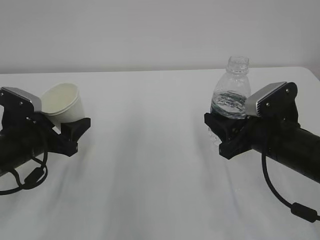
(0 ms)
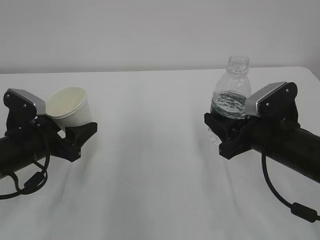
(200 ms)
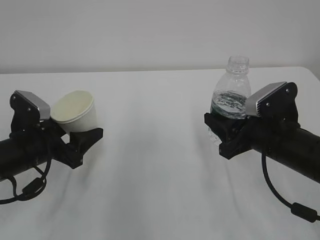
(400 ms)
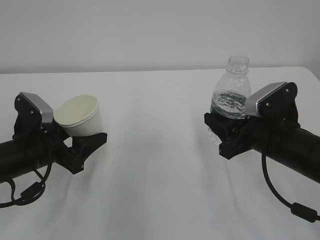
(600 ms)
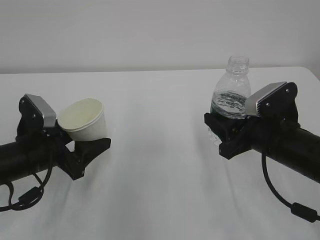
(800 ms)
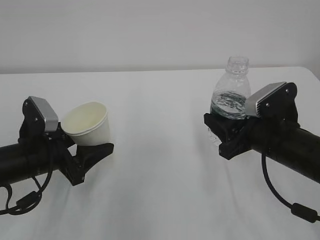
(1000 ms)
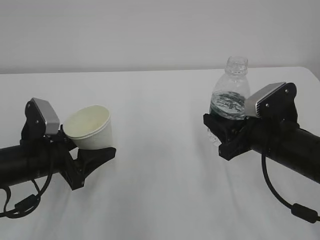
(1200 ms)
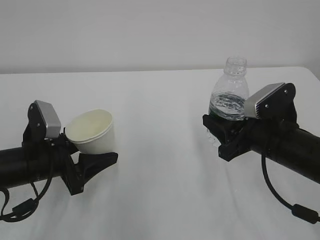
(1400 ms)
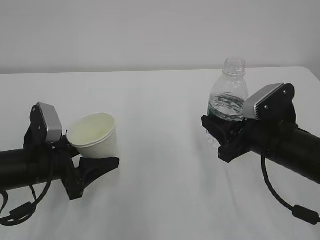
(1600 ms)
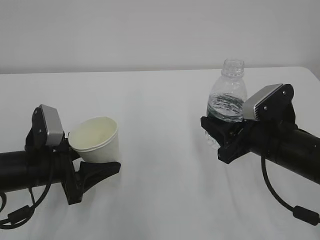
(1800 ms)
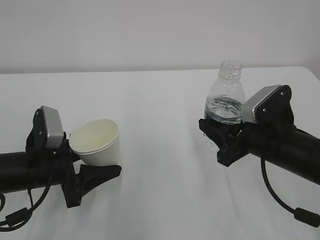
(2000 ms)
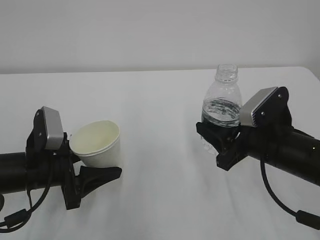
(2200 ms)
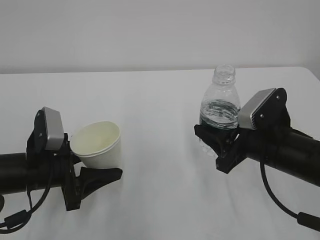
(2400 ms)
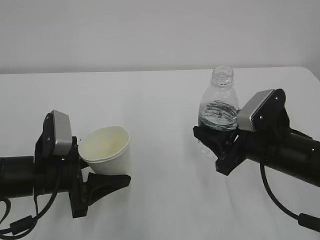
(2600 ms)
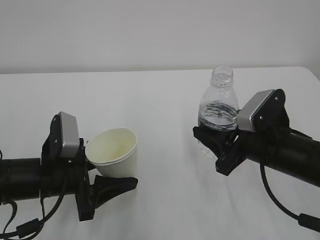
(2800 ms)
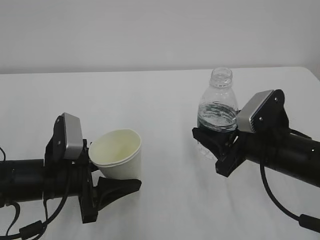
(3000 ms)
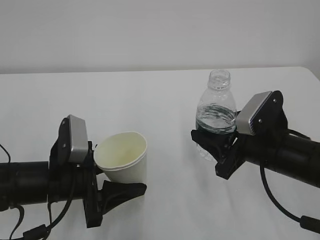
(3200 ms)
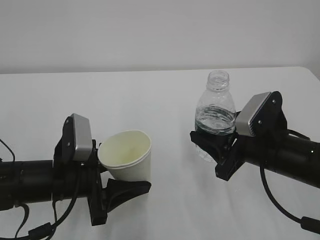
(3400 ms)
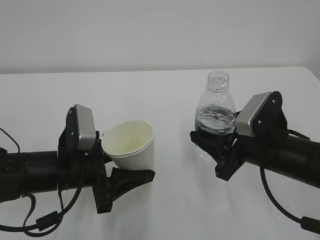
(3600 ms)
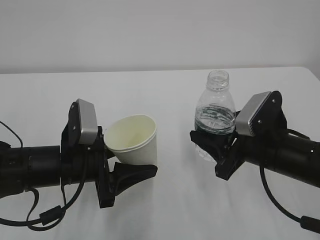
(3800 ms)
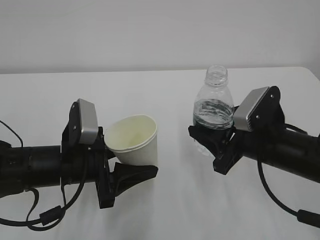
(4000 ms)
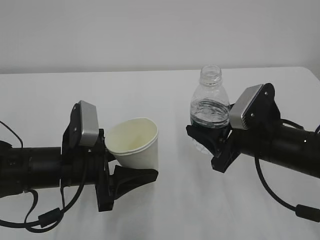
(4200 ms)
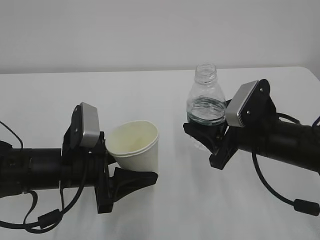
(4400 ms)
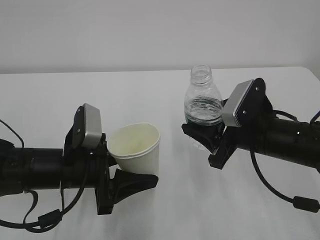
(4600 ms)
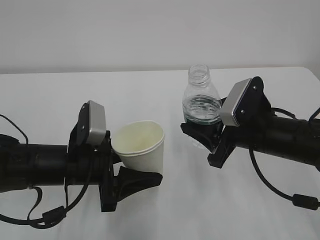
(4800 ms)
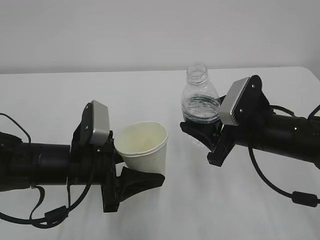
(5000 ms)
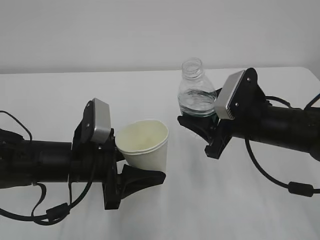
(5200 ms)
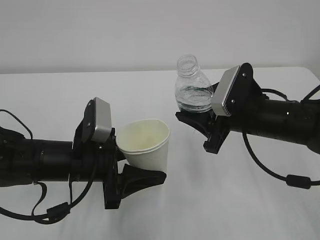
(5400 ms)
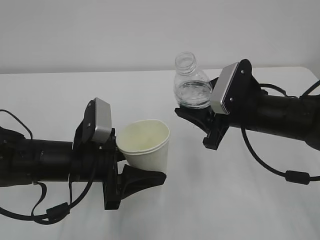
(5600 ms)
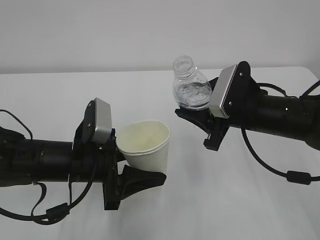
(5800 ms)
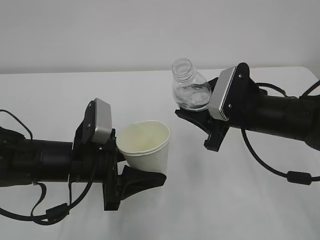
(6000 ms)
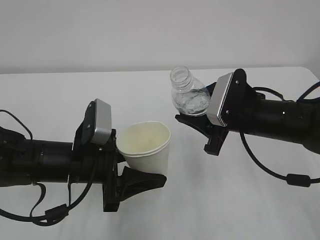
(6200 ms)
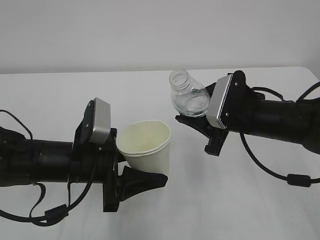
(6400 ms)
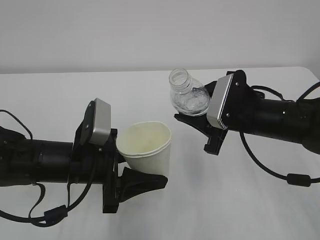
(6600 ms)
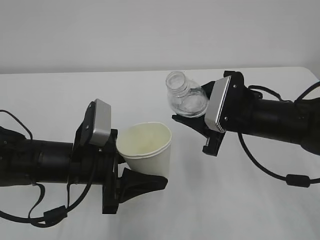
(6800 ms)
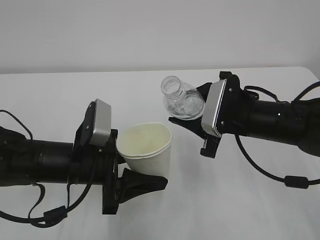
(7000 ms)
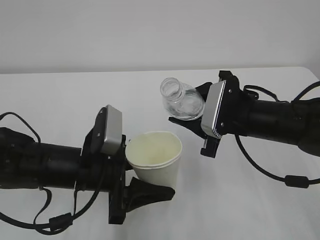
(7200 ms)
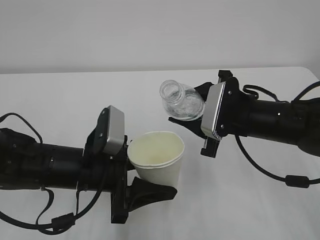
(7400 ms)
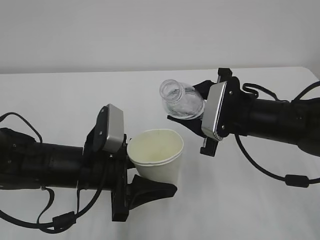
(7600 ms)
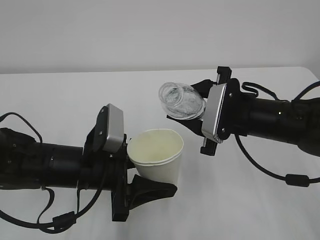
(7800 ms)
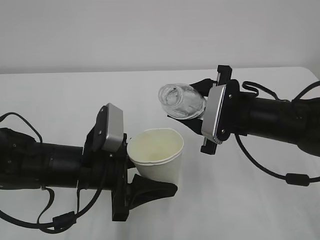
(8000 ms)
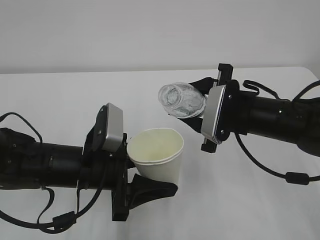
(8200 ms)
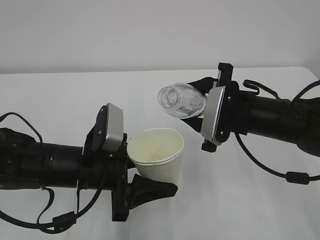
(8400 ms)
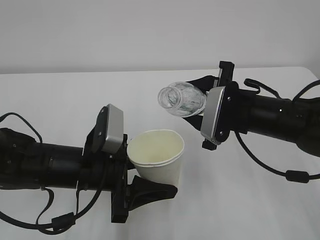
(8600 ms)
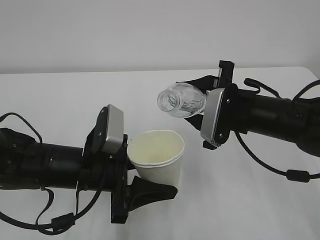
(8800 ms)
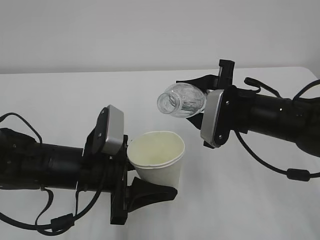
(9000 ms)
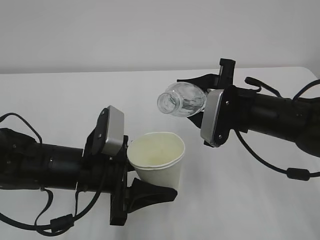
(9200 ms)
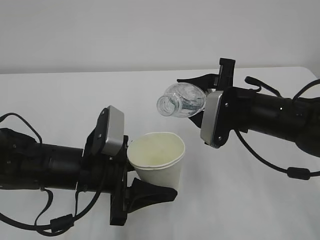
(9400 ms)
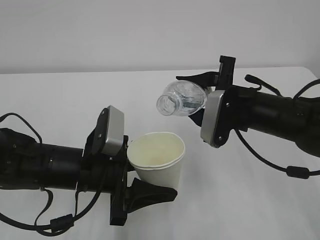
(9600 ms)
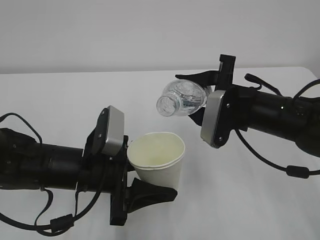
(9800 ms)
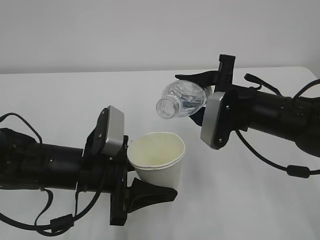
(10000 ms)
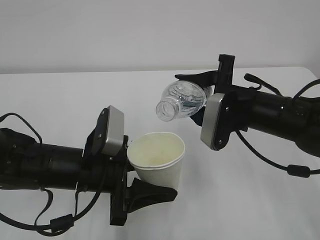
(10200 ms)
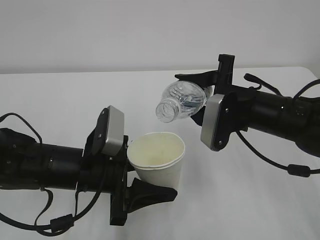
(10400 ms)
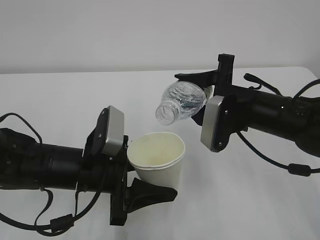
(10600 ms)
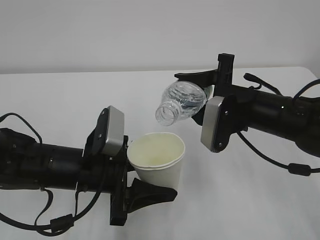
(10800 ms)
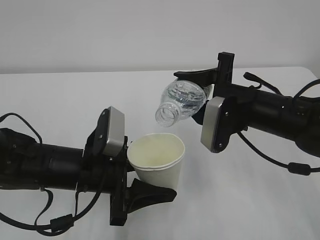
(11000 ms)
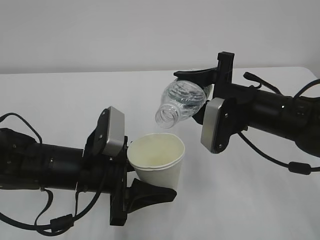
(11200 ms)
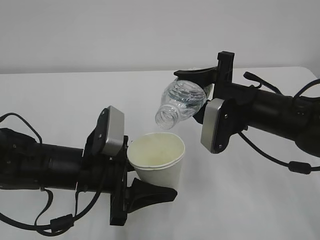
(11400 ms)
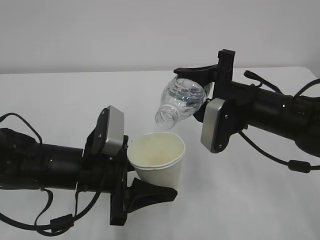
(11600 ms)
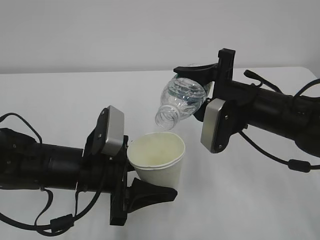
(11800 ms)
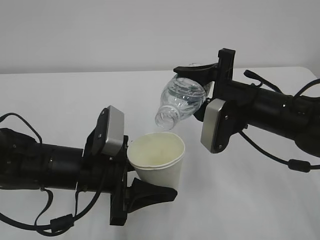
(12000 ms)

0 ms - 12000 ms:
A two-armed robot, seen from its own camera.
1600 ms - 3000 ms: There are only small adjustments of the grippers.
3000 ms - 4400 ms: The grippers make only small movements.
6000 ms - 7600 ms: There are only small adjustments of the grippers.
7600 ms - 9000 ms: There are only small adjustments of the grippers.
9000 ms - 10400 ms: The grippers make only small movements.
10400 ms - 12000 ms: The grippers stay close to where they were, moving slightly.

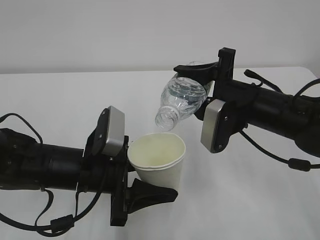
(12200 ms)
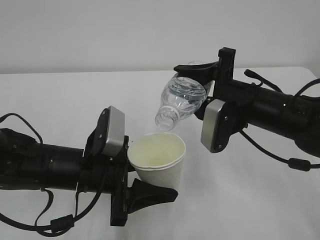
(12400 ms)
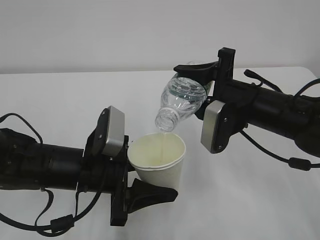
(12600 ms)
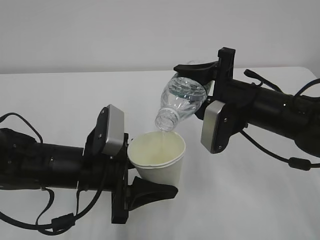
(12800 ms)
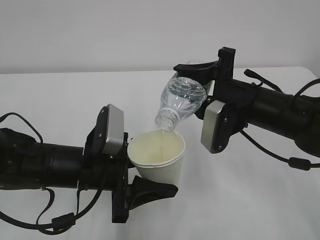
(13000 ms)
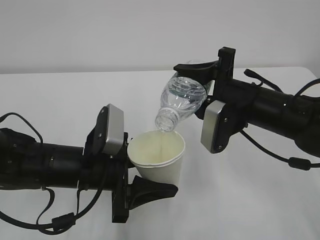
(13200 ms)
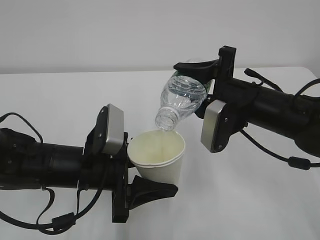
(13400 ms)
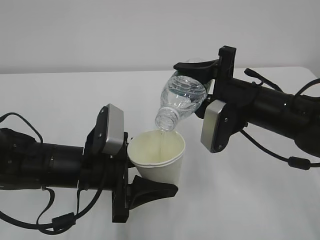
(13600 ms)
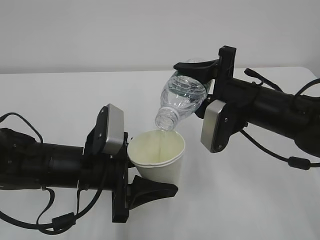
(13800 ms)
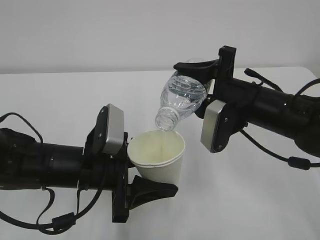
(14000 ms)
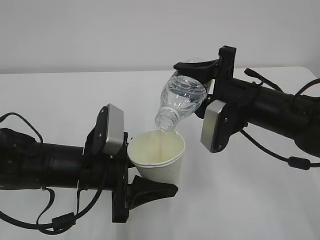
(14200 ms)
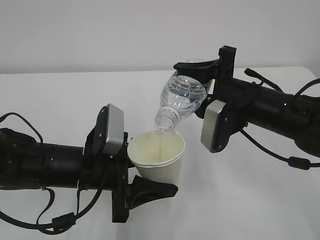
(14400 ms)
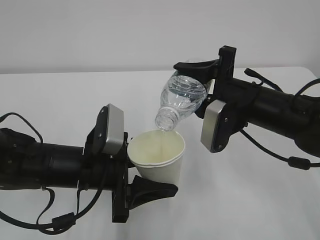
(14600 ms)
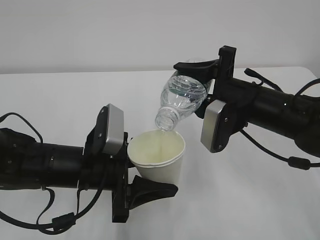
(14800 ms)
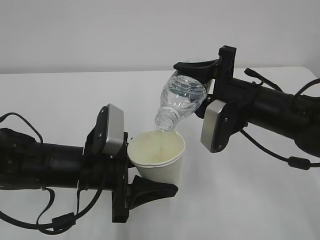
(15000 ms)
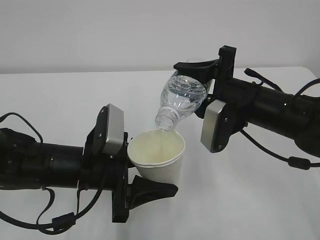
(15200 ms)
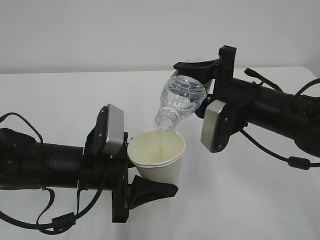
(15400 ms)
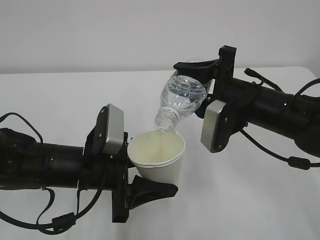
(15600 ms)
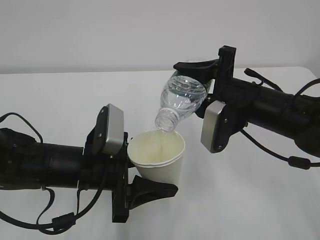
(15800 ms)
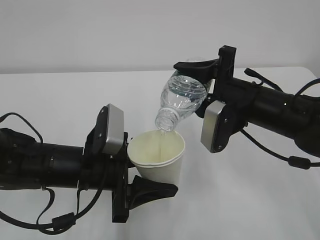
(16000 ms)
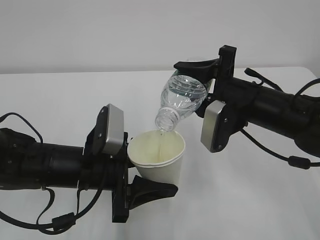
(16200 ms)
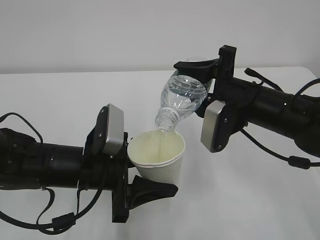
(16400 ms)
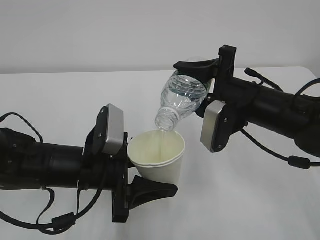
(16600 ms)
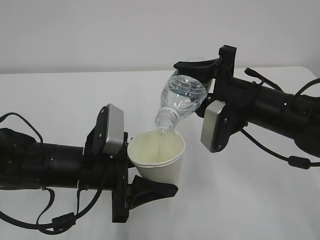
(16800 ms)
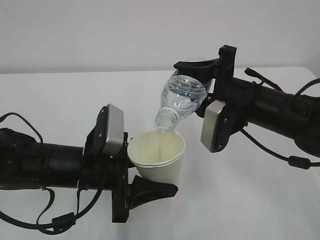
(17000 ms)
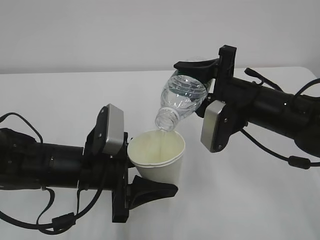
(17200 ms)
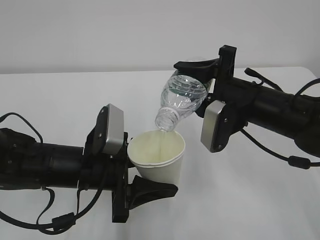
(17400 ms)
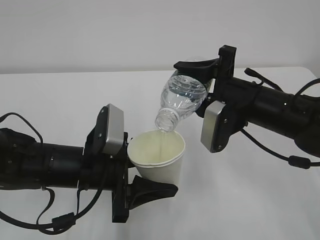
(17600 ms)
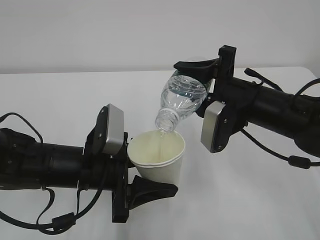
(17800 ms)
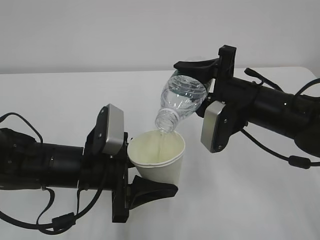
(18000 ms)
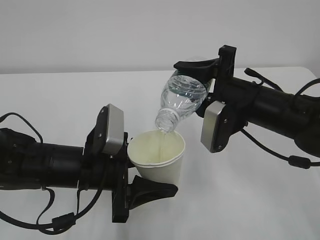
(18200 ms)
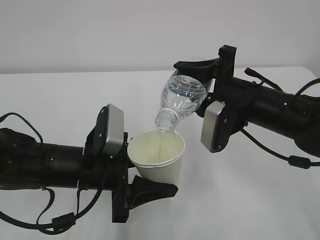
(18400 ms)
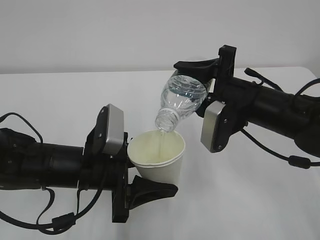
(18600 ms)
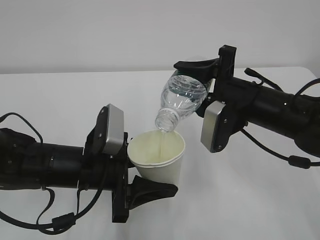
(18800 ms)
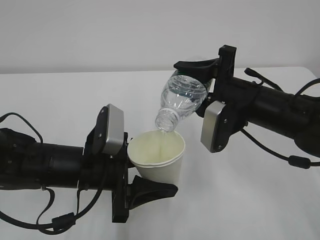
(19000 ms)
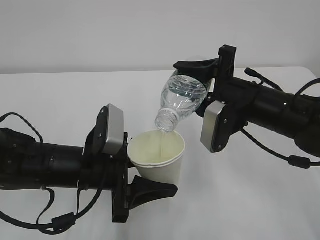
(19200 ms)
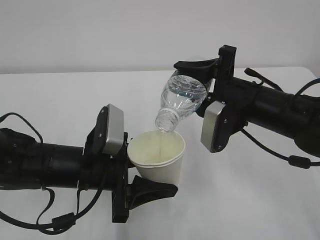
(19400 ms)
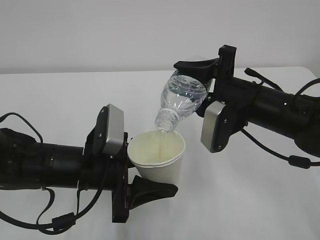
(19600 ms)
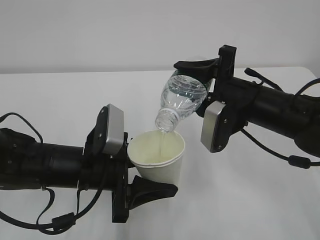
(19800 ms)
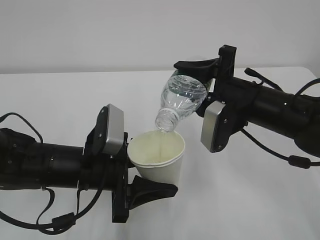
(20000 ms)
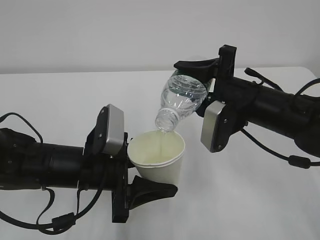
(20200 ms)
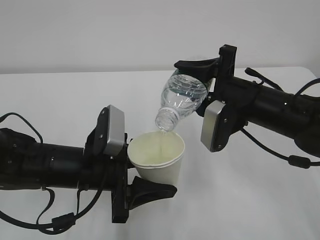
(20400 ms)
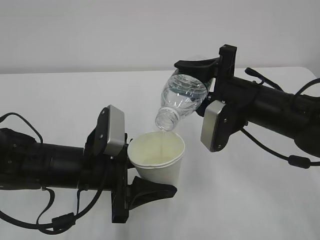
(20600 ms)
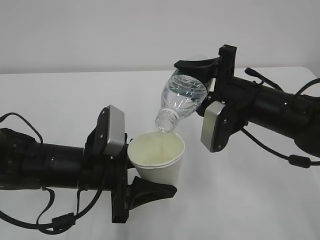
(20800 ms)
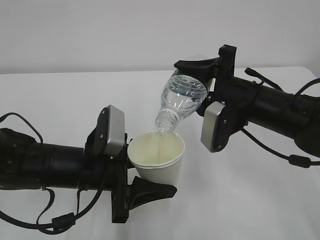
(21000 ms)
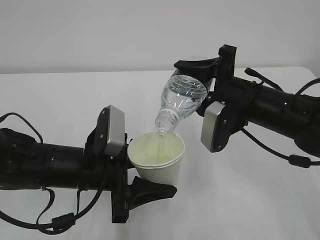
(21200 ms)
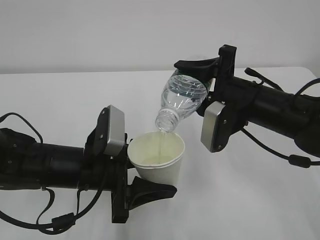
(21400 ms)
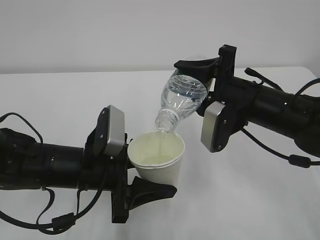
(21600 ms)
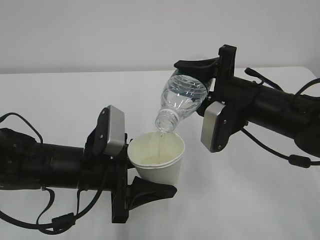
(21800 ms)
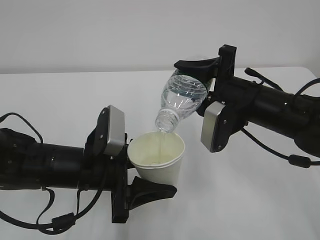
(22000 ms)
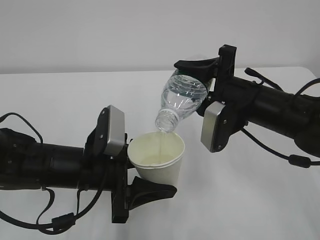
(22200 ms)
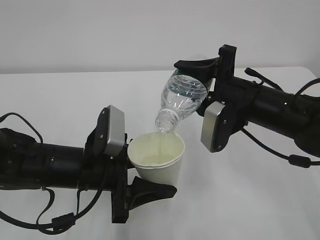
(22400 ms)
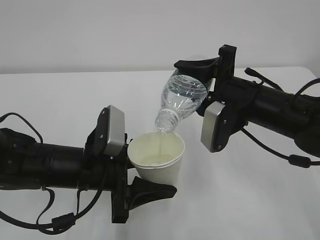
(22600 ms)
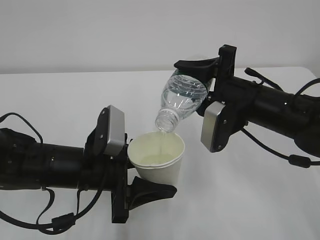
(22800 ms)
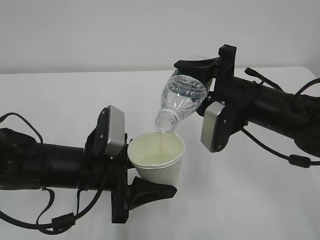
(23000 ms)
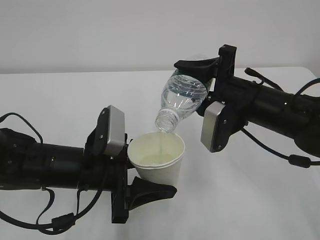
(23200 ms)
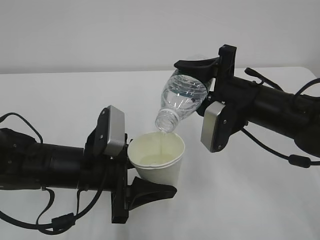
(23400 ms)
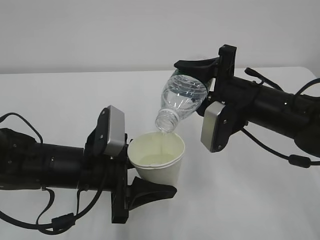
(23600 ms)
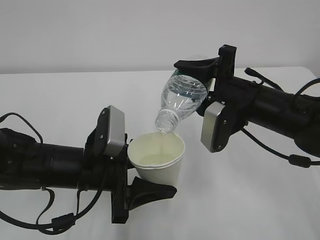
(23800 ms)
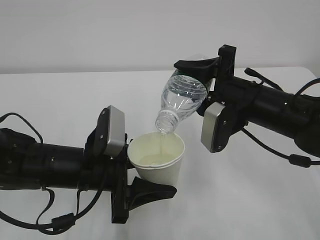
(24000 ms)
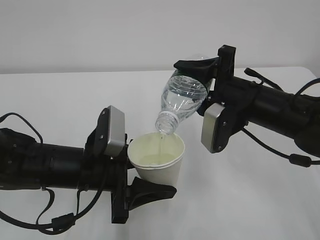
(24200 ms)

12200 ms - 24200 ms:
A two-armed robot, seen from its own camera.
12200 ms - 16600 ms: The two grippers keep their place.
16600 ms - 24200 ms: Both grippers stay put.
